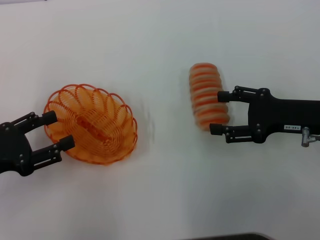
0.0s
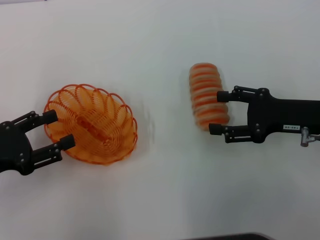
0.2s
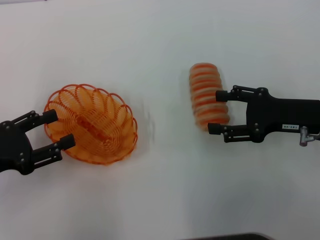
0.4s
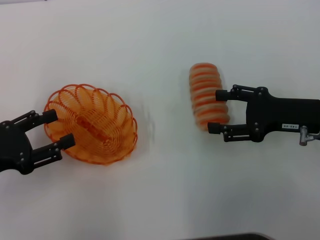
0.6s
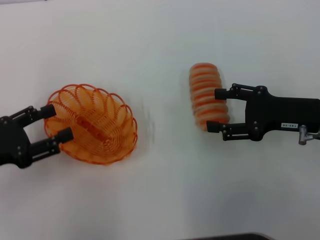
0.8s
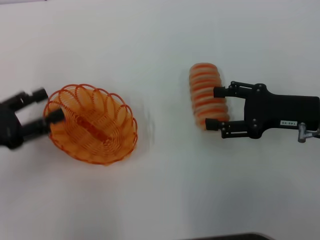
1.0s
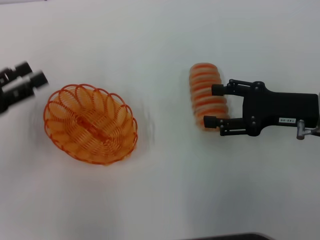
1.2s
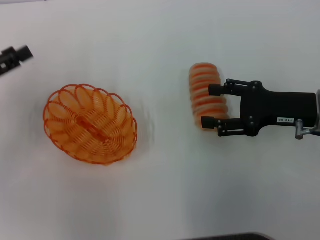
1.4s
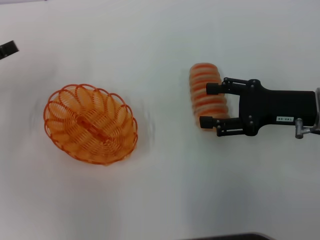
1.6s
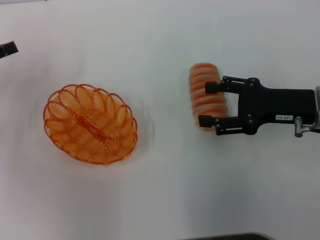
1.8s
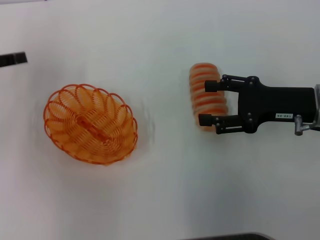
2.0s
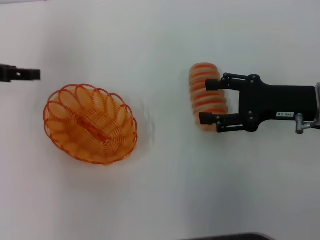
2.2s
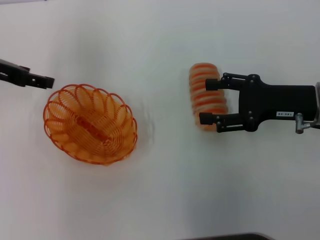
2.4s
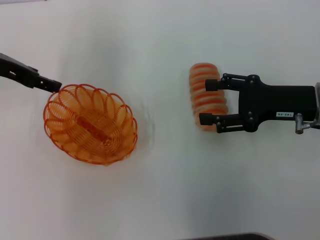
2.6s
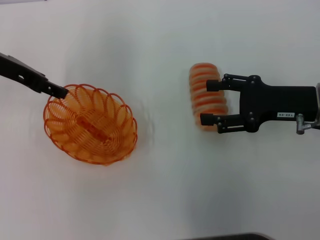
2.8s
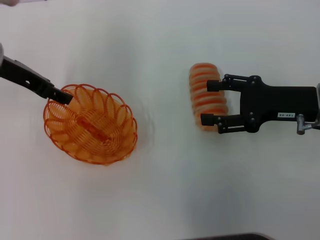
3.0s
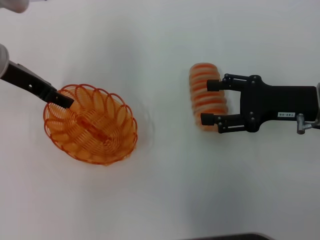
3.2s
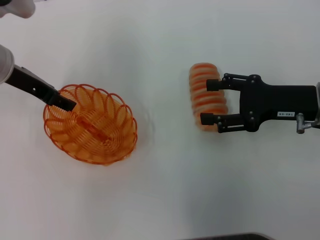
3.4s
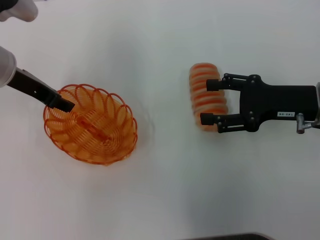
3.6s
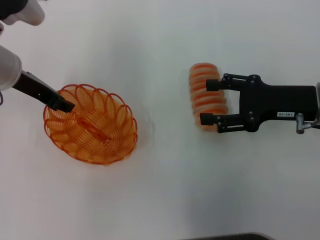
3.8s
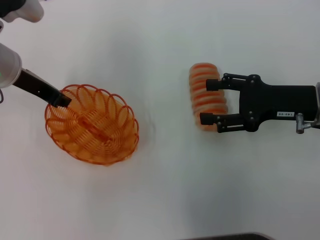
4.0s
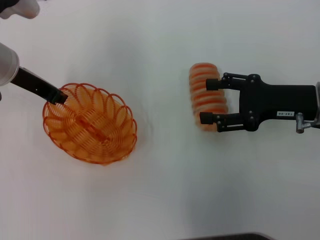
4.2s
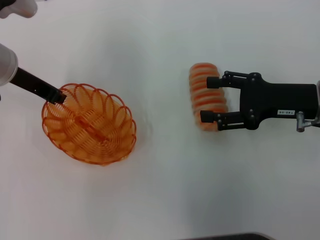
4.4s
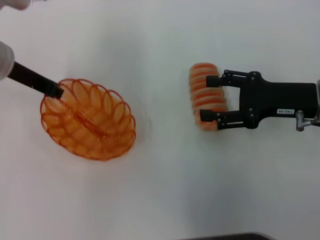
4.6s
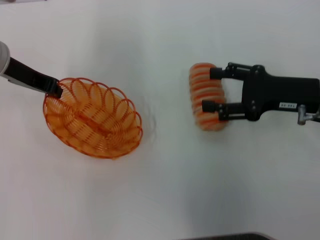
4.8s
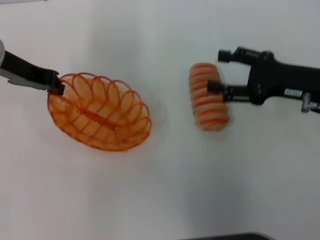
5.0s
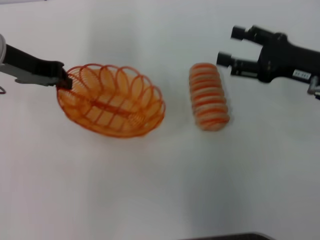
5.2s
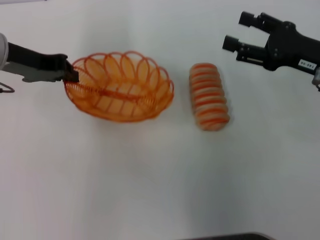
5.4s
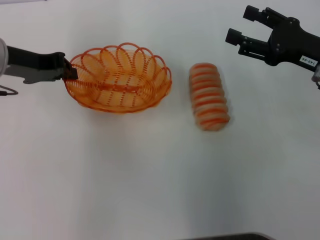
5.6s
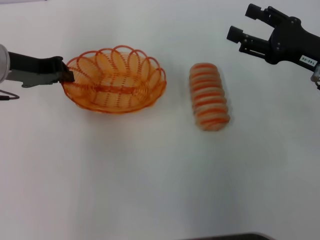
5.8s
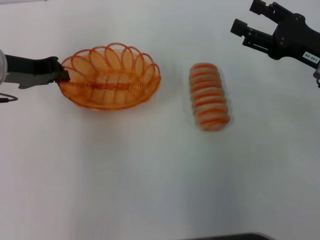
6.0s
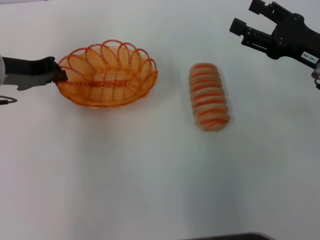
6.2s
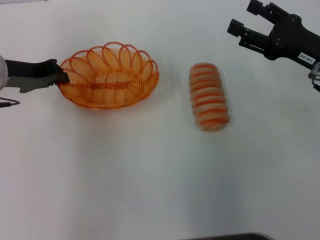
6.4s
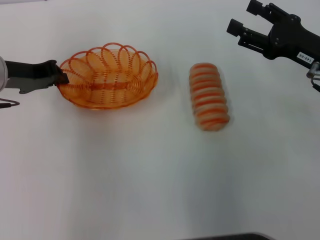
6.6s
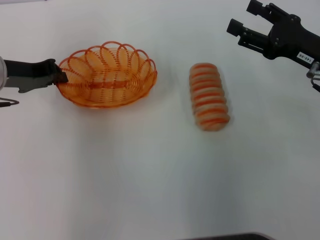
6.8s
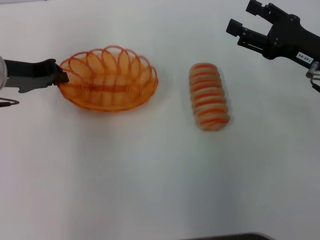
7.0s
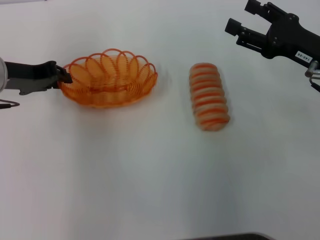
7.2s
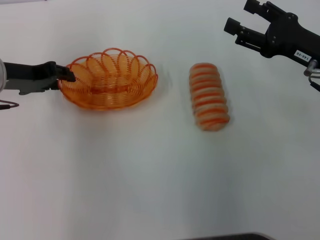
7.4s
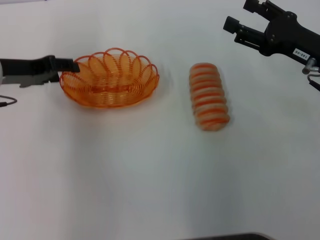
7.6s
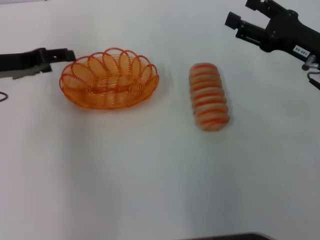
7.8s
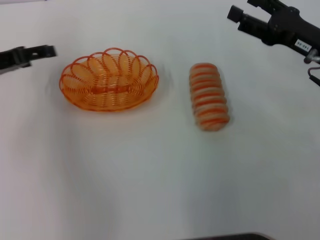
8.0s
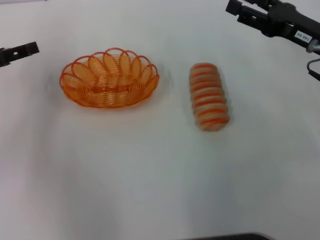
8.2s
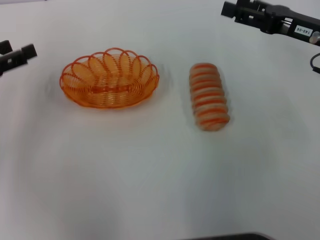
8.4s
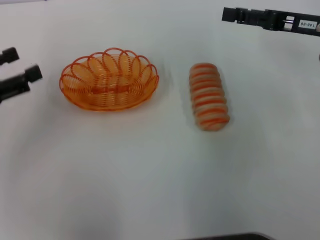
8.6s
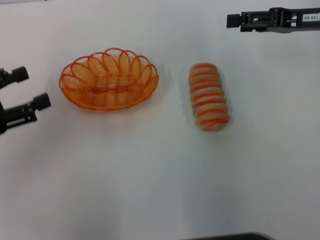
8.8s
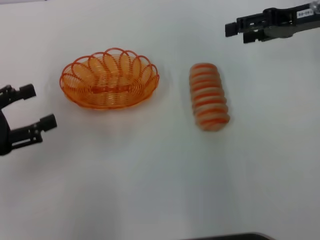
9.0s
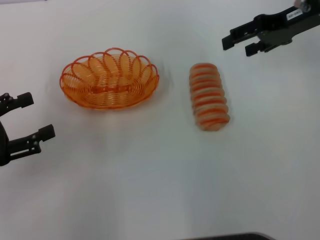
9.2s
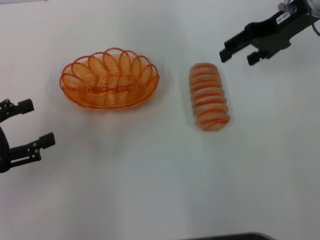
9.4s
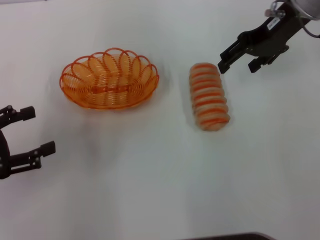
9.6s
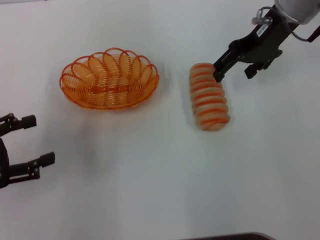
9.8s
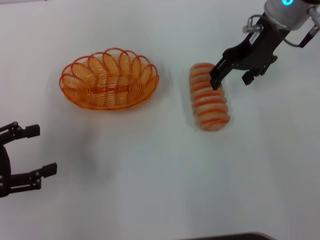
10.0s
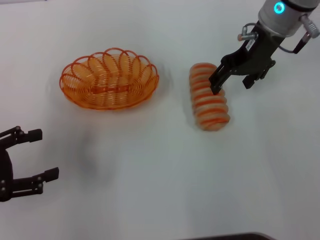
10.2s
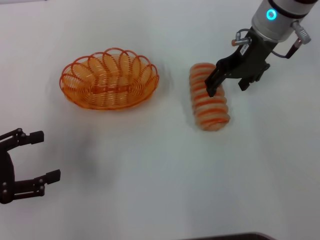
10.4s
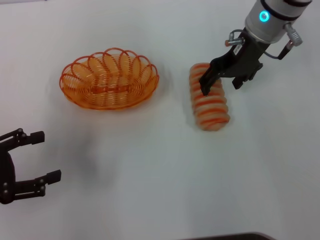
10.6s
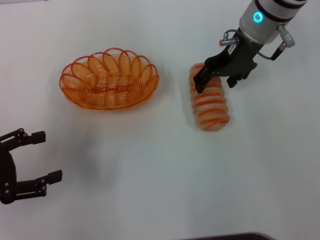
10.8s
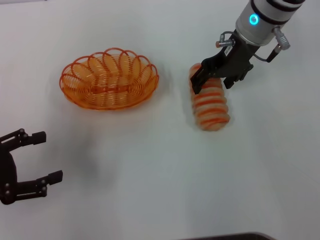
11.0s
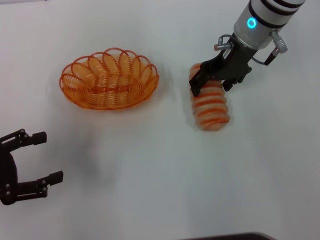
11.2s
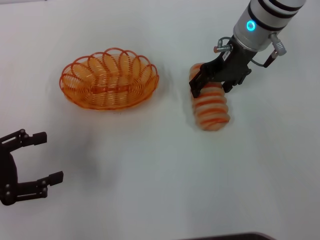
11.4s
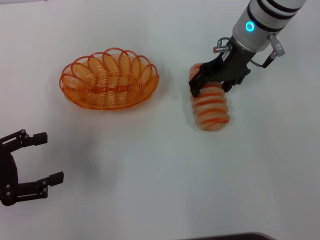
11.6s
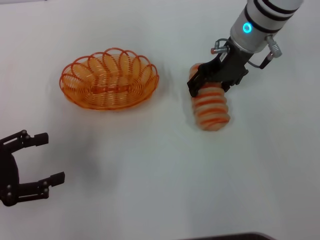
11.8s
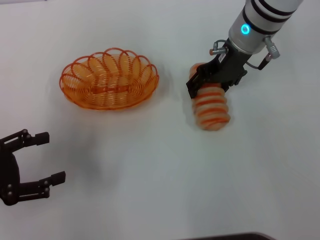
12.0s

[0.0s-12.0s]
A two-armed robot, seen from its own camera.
Step, 0.0s to 4.6s: Pick up the basket with the left gripper.
Step, 4.8s to 7.6s: Place the basket in the center of view with the left gripper.
0.0s to 1.6s: The left gripper is displaced forward by roughly 10 cm.
1.6s to 3.0s: The left gripper shifts roughly 15 cm to the right, forward and upward.
3.0s to 4.4s: The left gripper closes its fingers.
6.0s to 7.6s: The left gripper opens its fingers.
7.6s to 9.0s: The right gripper heads upward and forward, covering roughly 10 cm, while the left gripper travels backward and to the left by approximately 15 cm, and opens.
9.0s to 10.4s: The right gripper goes approximately 10 cm to the left.
10.4s to 12.0s: The grippers stay close to where they were, moving slightly.

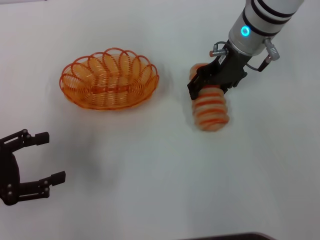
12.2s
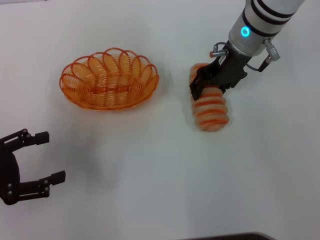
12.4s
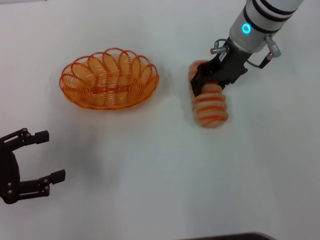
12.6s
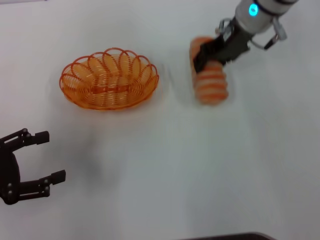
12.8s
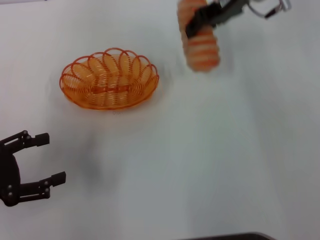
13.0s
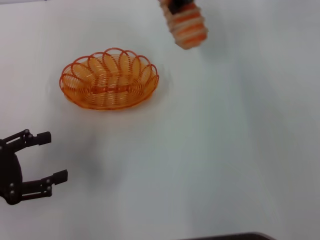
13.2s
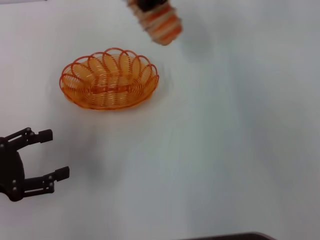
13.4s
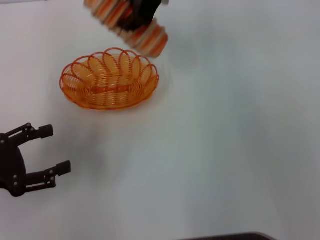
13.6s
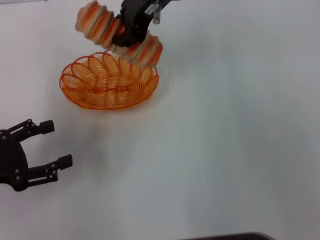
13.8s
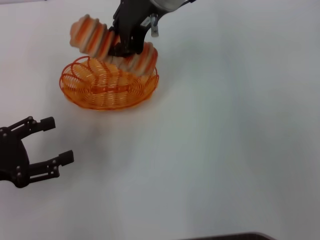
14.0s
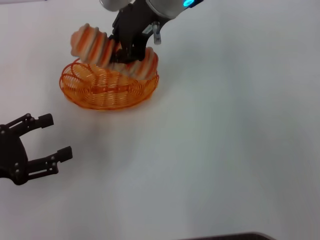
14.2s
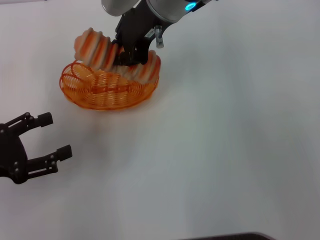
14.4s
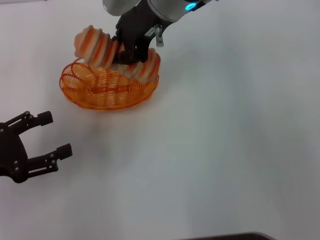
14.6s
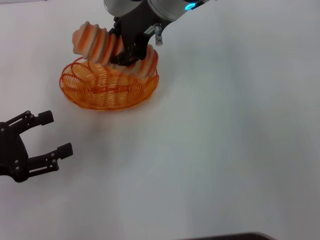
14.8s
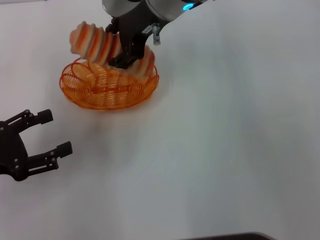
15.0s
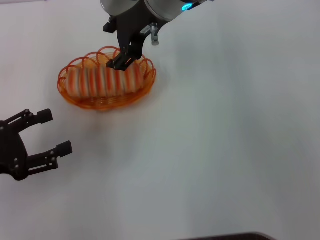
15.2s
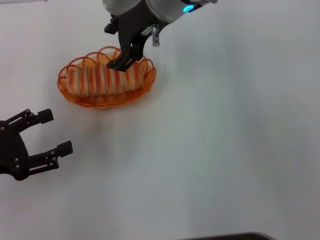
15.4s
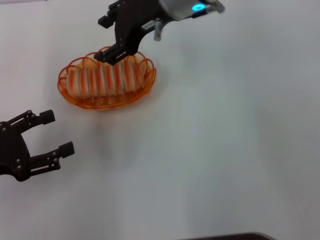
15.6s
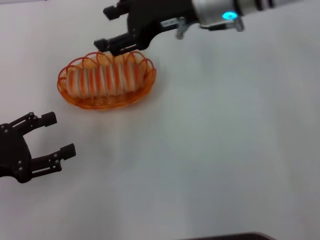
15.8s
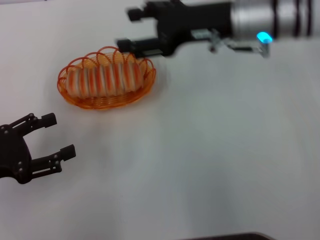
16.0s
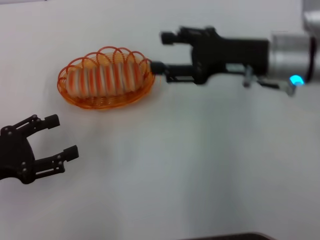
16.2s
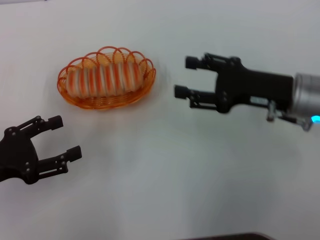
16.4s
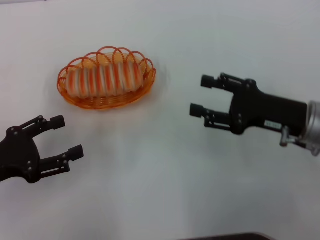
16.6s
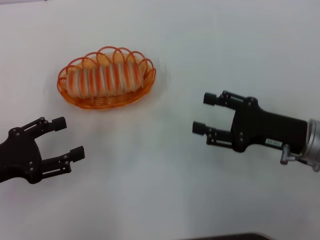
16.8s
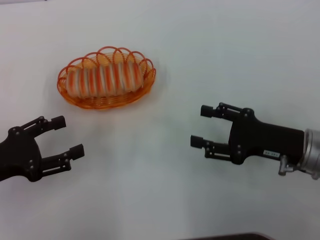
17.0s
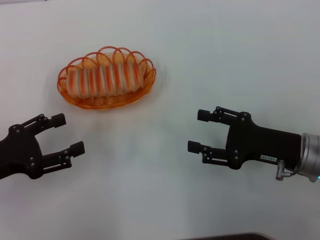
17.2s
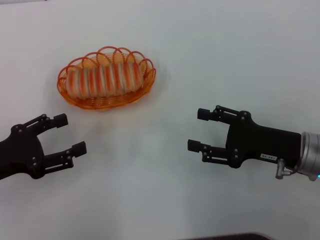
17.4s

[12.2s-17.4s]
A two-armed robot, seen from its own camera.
Step, 12.8s to 15.4s: Place the long bread into the basket with the right gripper.
12.2s to 14.0s: The right gripper travels to the left and upward by about 15 cm, and closes up.
14.0s to 15.6s: The right gripper opens up.
15.6s to 17.4s: The right gripper moves to the right, backward and downward, roughly 30 cm.
